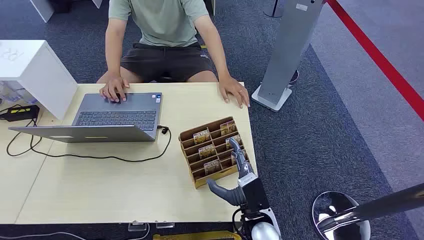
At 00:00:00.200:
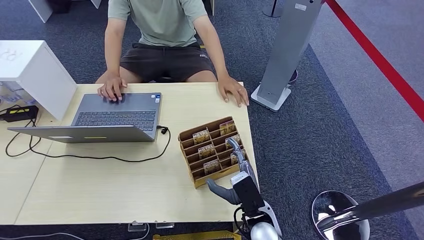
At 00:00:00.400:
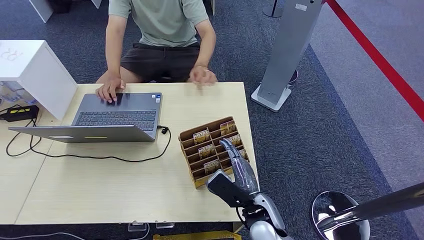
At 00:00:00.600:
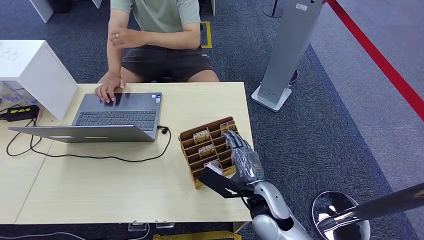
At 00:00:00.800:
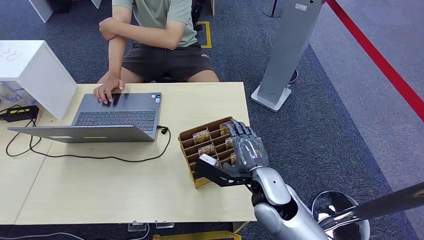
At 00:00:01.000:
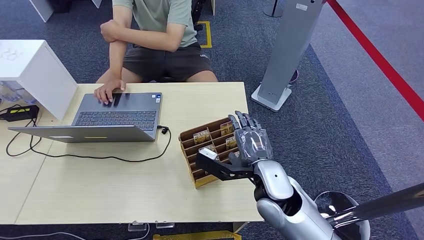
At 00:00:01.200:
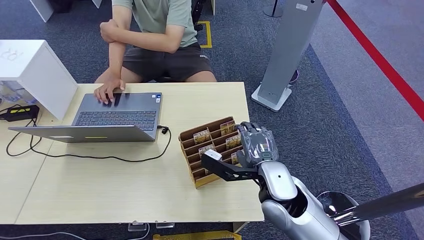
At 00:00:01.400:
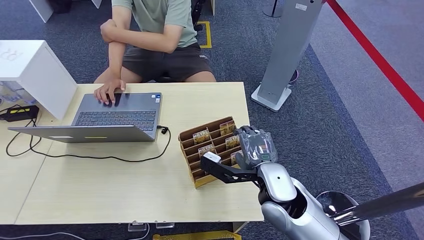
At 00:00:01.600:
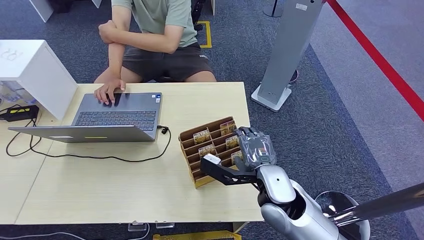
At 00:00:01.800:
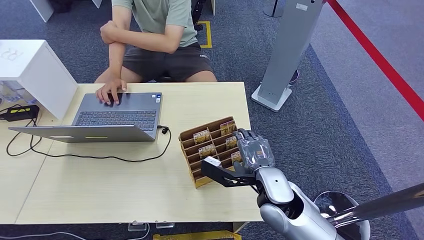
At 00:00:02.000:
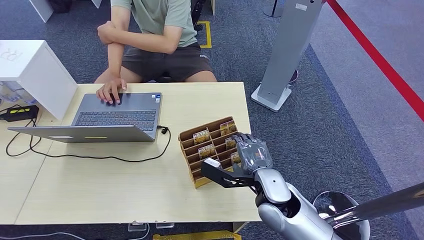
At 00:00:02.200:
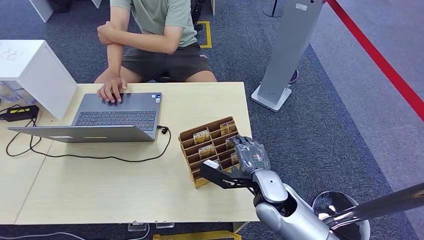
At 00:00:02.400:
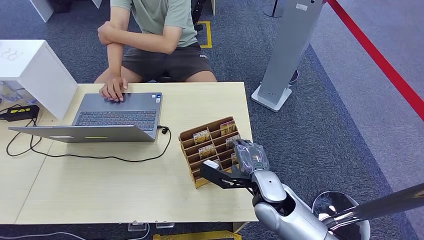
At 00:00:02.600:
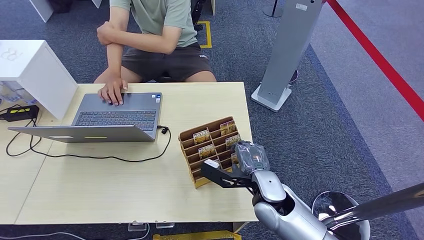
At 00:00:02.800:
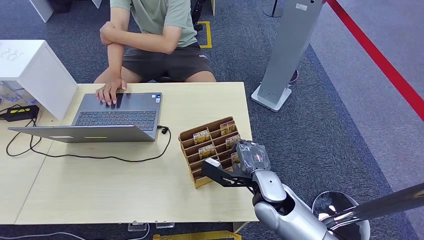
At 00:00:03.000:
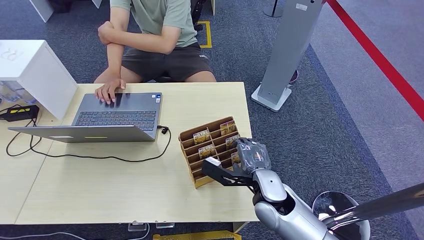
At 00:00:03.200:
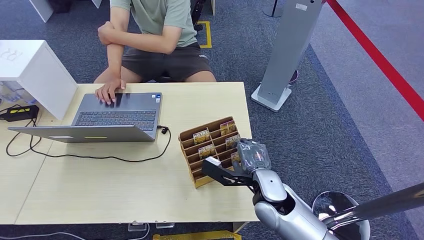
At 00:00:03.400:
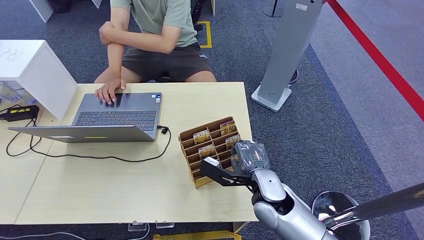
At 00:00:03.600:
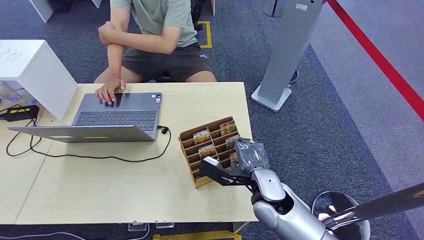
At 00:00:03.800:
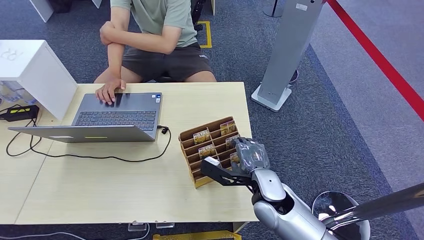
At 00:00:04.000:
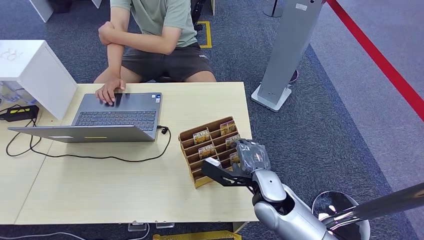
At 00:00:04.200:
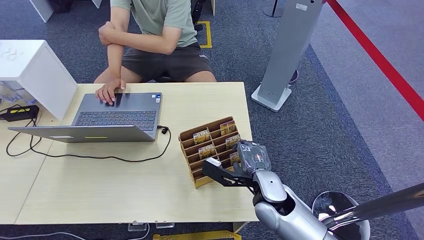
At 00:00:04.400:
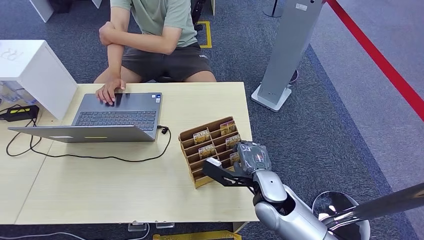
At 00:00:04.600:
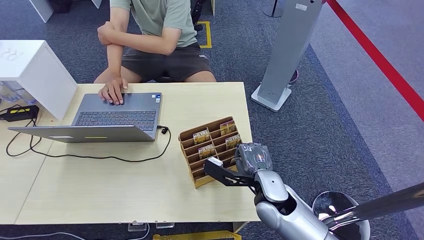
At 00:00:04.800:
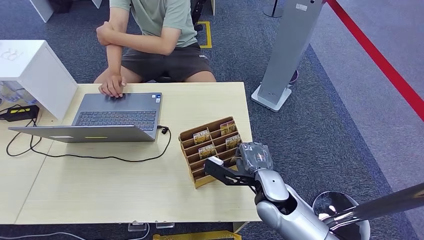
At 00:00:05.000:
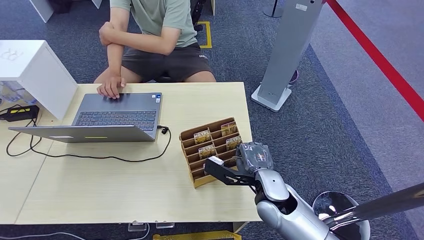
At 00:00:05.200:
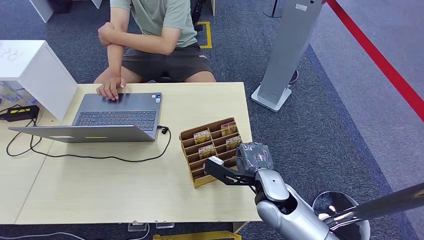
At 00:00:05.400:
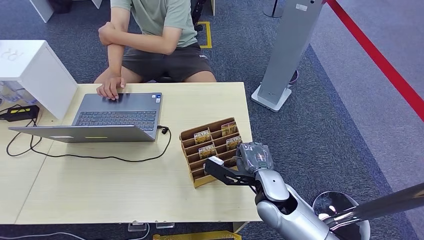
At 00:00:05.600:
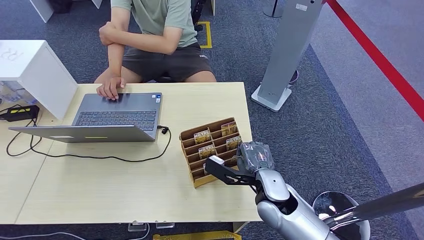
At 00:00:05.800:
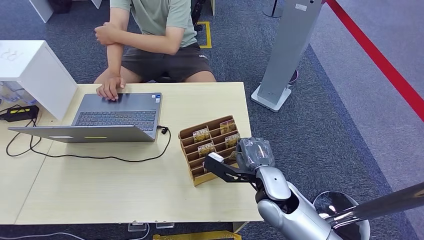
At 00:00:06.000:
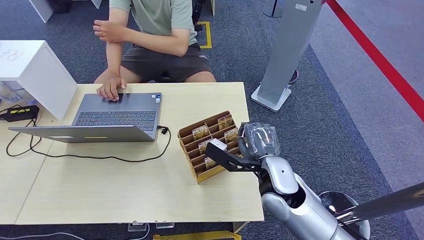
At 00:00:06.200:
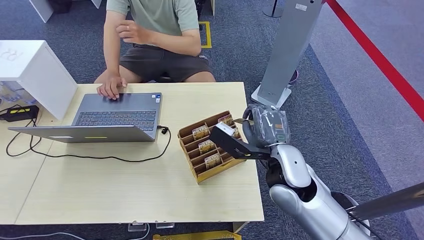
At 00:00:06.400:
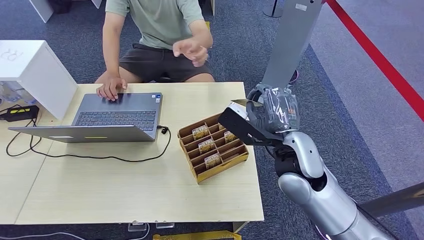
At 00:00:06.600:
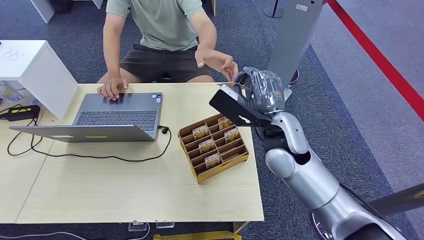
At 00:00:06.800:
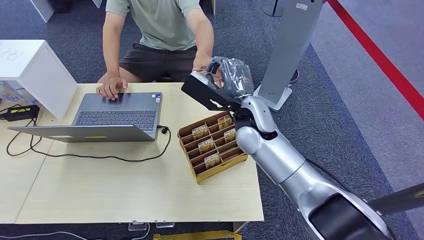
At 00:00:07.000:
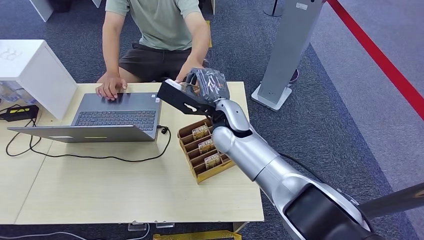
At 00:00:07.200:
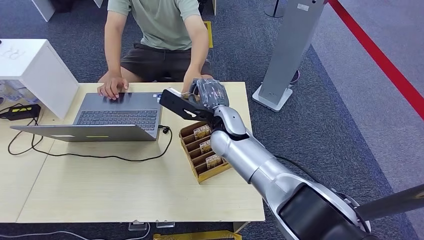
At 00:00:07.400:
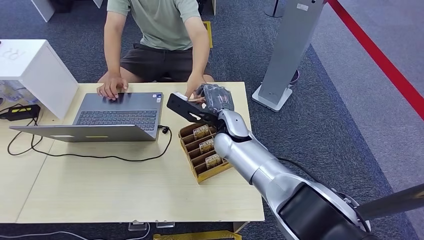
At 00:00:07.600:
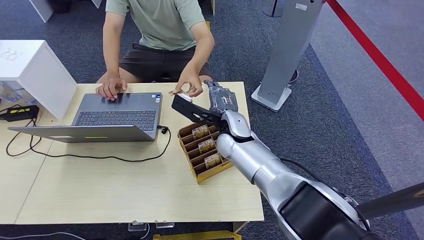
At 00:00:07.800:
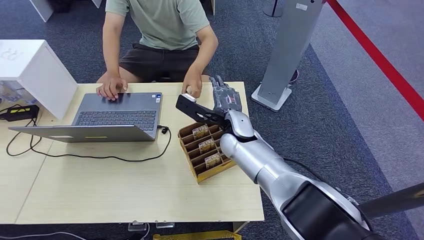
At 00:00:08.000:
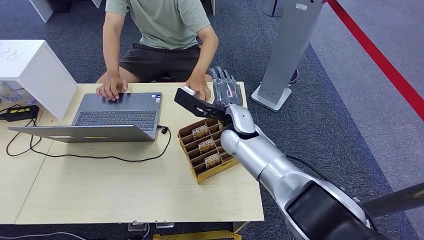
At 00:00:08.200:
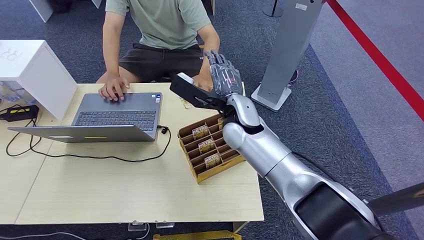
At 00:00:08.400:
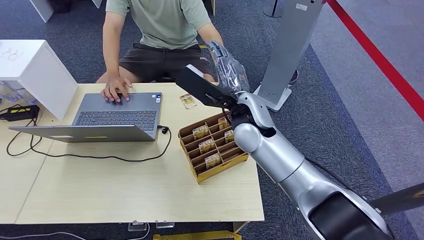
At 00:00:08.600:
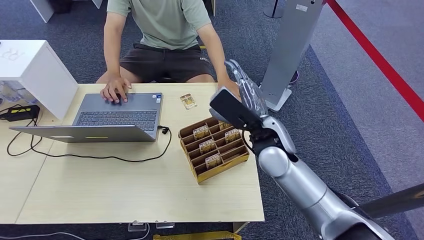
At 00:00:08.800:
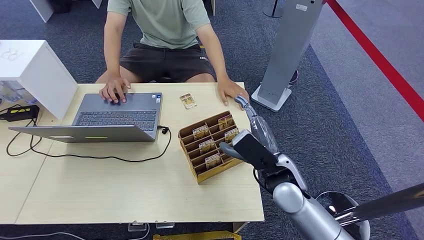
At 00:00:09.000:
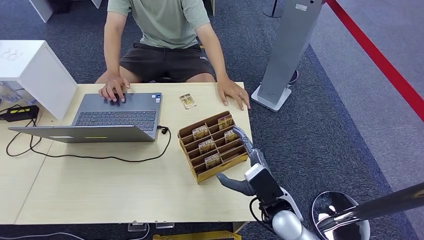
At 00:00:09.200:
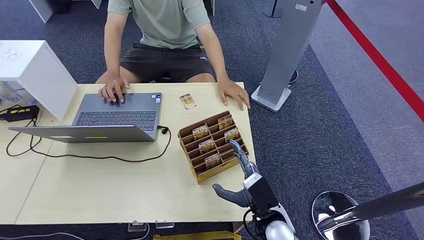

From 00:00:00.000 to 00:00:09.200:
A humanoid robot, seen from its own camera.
Step, from 00:00:00.000 to 00:00:05.800: Pick up the room card from the card holder.
Step, from 00:00:06.000 to 00:00:09.000: Hand the room card to the target.
From 00:00:01.600 to 00:00:03.000: The right hand is displaced downward by roughly 5 cm.
From 00:00:03.000 to 00:00:04.600: Both hands stay put.
From 00:00:04.600 to 00:00:06.200: The right hand is displaced upward by approximately 10 cm.
From 00:00:06.200 to 00:00:07.600: The right hand moves forward and to the left, about 15 cm.
From 00:00:07.600 to 00:00:09.200: The right hand travels backward, downward and to the right by some 25 cm.

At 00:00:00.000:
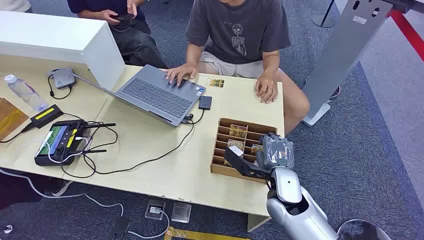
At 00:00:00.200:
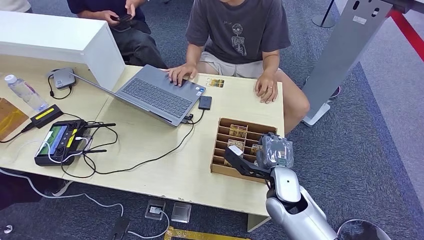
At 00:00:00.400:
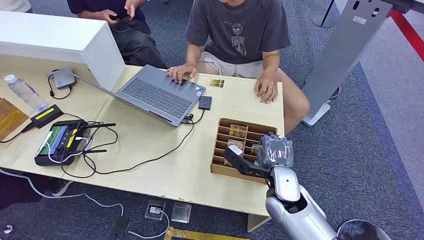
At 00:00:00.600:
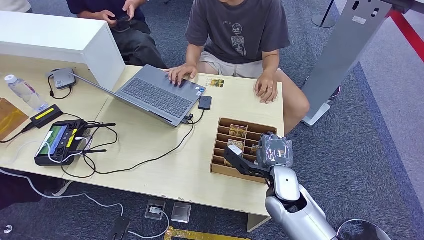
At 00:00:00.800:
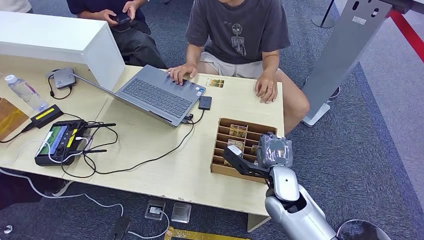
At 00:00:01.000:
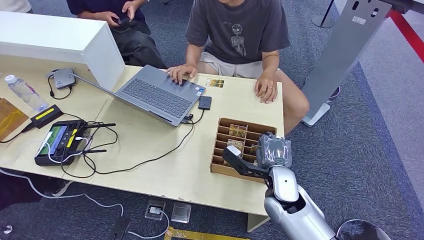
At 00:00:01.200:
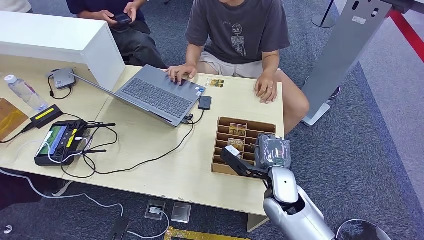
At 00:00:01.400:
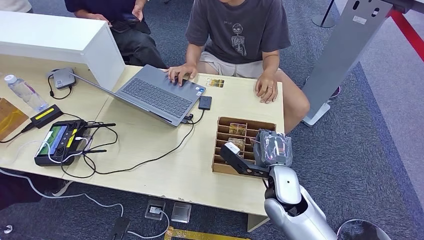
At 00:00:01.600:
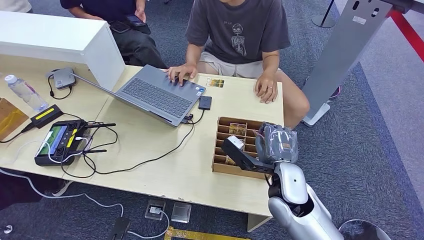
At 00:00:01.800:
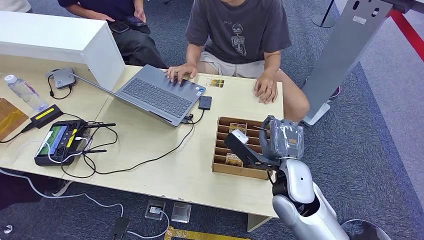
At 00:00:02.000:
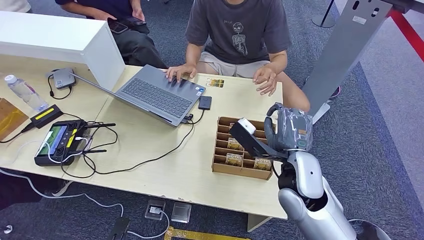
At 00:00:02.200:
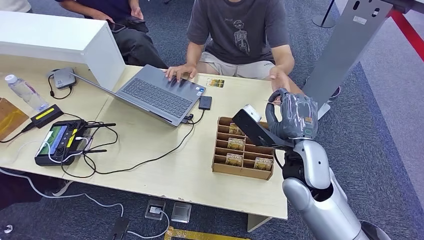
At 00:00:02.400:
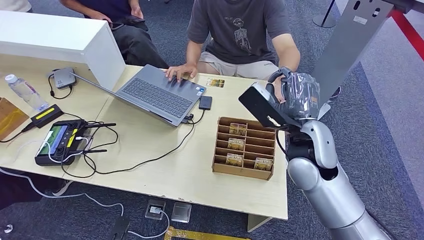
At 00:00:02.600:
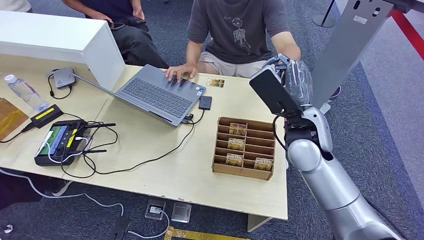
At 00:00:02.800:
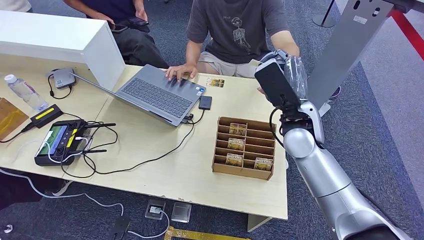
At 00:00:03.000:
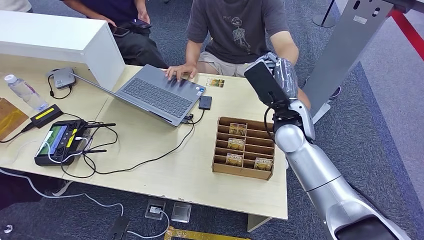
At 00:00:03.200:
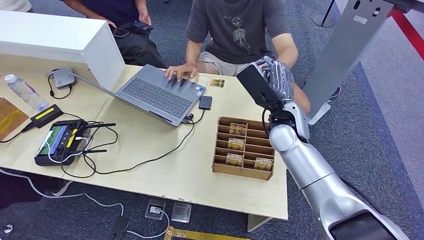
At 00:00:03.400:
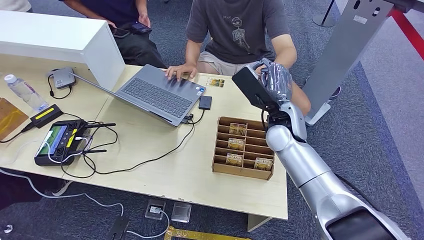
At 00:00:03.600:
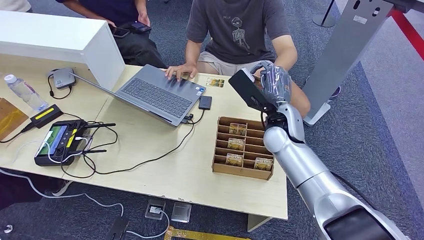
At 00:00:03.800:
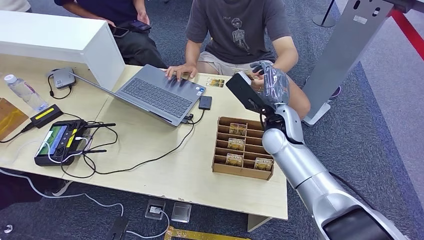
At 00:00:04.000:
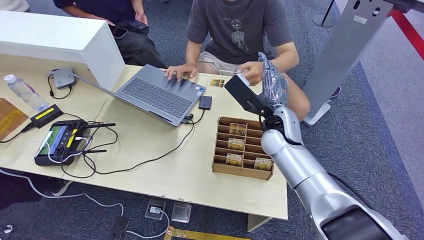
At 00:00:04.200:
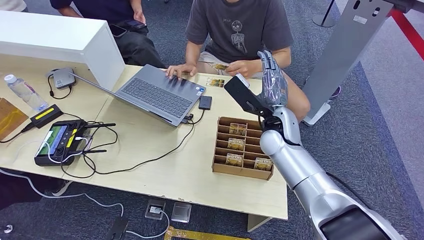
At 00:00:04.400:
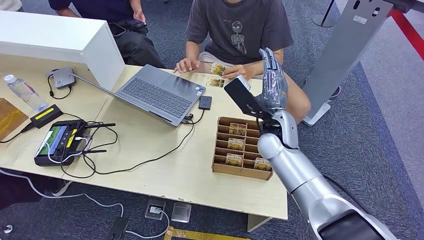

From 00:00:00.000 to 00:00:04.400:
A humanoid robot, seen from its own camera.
Step, from 00:00:00.000 to 00:00:01.800: Pick up the room card from the card holder.
Step, from 00:00:02.200 to 00:00:04.400: Hand the room card to the target.
From 00:00:01.400 to 00:00:03.000: The right hand shifts approximately 15 cm upward and forward.
From 00:00:03.000 to 00:00:04.400: There are only small adjustments of the hands.
